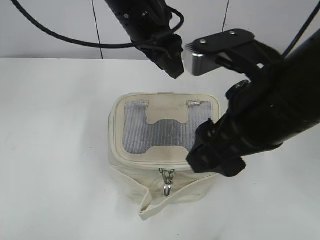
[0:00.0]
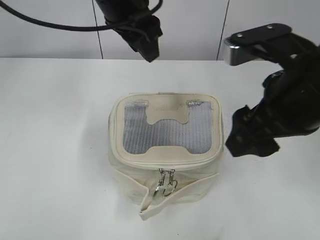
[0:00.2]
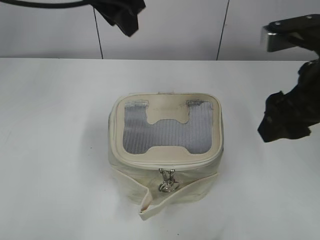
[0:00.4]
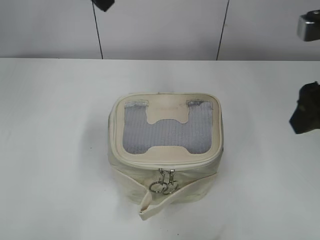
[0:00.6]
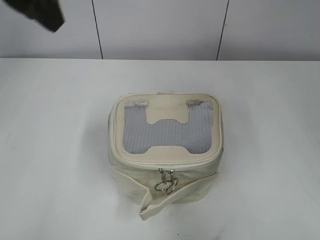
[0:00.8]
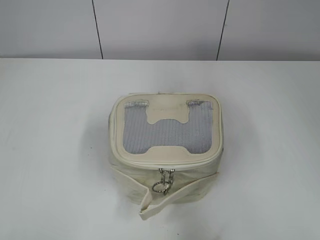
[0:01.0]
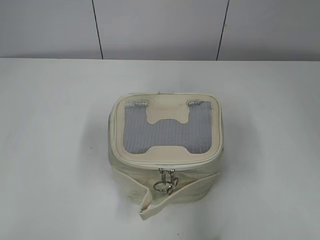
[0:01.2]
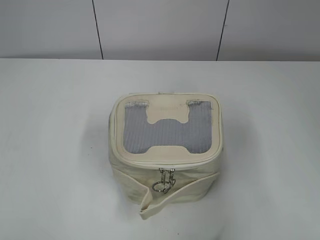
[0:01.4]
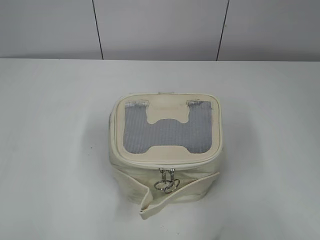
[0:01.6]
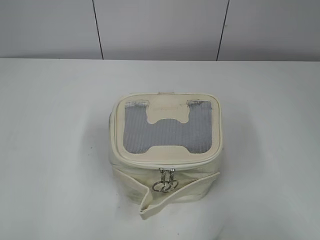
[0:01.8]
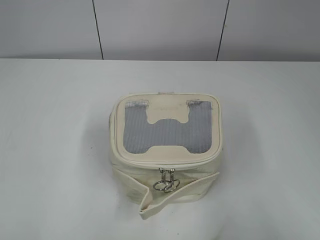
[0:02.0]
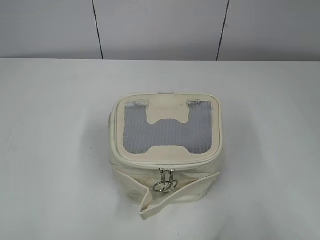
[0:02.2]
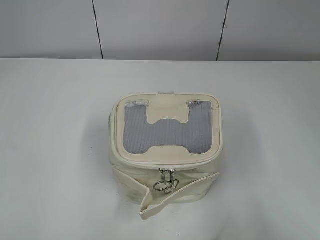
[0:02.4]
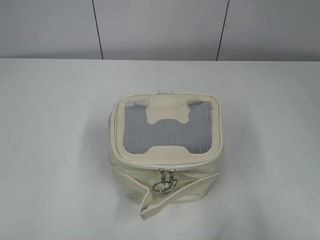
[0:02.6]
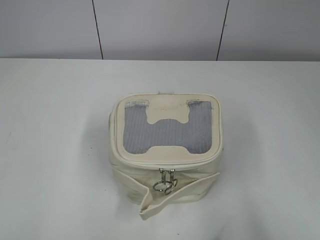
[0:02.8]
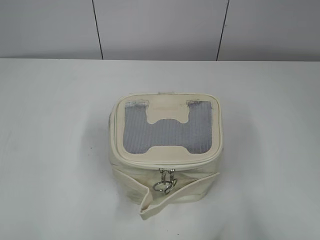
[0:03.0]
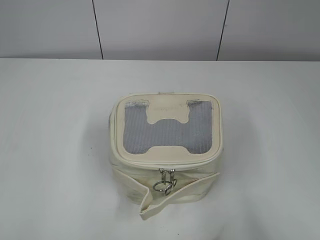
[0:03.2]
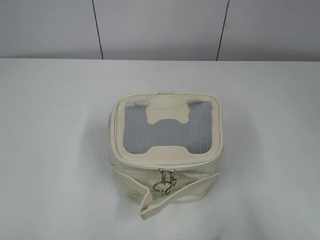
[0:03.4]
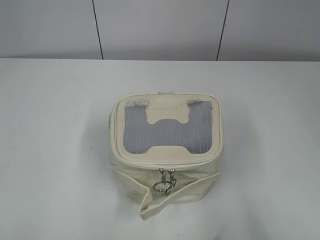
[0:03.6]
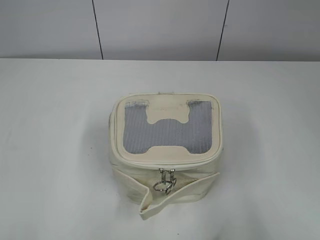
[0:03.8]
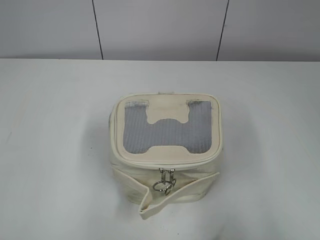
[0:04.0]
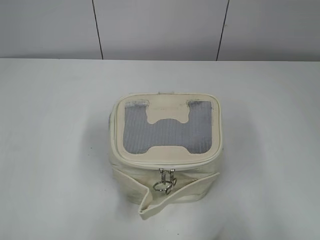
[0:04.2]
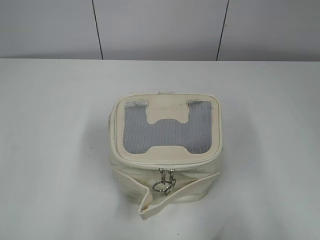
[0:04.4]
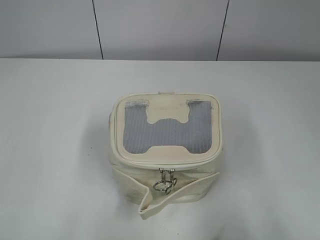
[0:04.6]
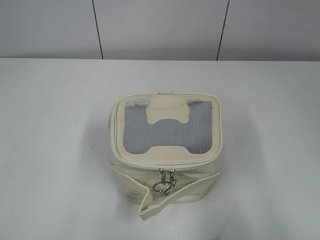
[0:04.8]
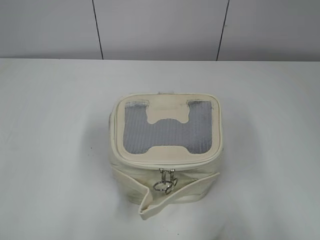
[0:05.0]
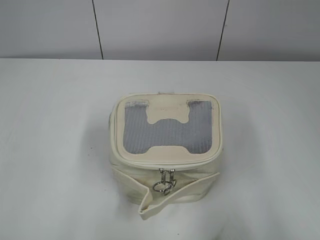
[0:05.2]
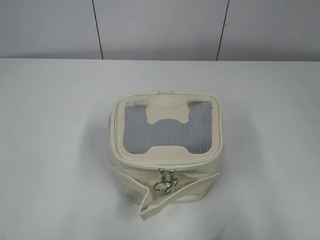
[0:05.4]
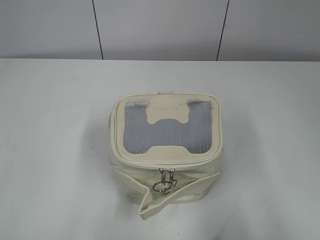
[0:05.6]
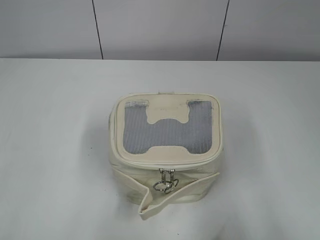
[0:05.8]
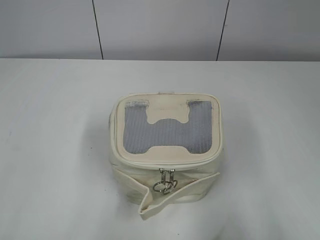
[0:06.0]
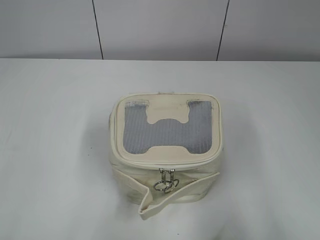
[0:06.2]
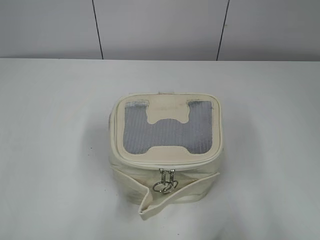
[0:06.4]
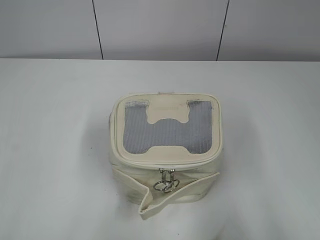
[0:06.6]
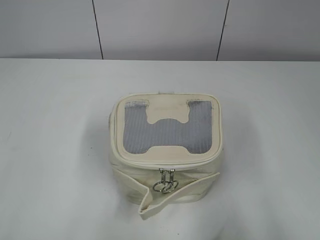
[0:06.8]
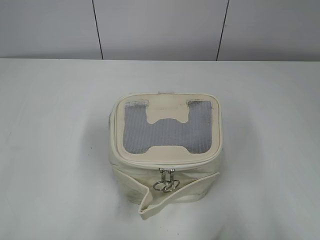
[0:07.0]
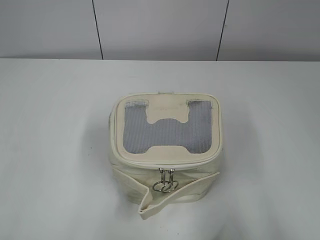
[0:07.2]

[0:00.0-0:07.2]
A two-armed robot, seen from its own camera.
0.0 to 1.4 s: The left gripper is displaced backward and to the left by approximately 40 cm; the right gripper shifts about 20 cm to the right and backward.
1.4 to 2.8 s: The left gripper moves downward and backward, some 10 cm, while the right gripper moves backward, some 10 cm.
5.8 to 7.2 s: The two grippers keep their place.

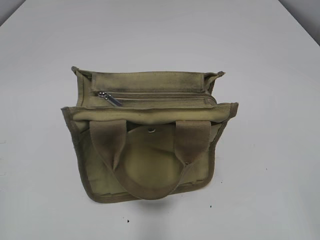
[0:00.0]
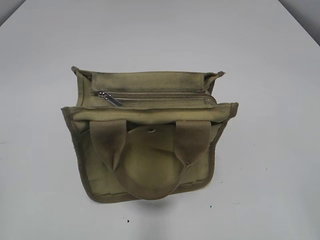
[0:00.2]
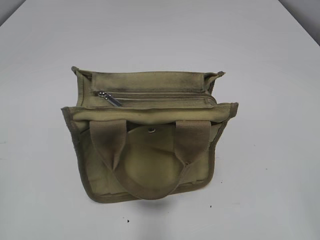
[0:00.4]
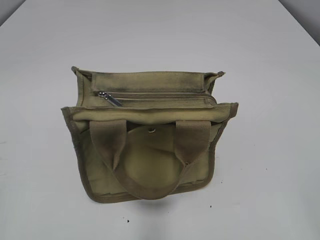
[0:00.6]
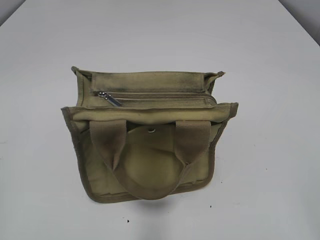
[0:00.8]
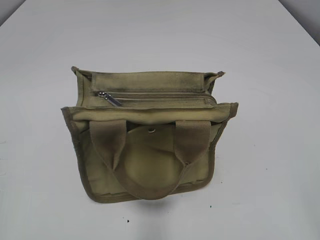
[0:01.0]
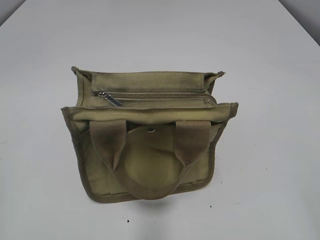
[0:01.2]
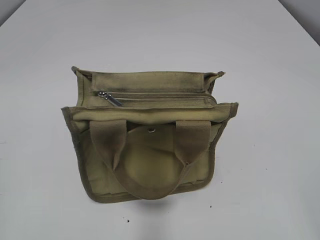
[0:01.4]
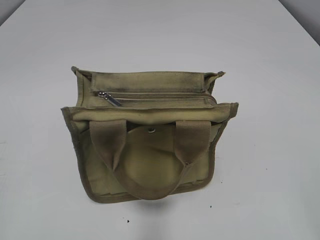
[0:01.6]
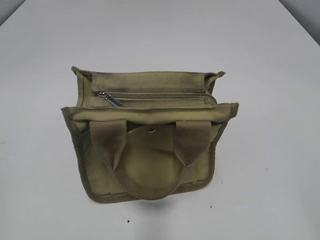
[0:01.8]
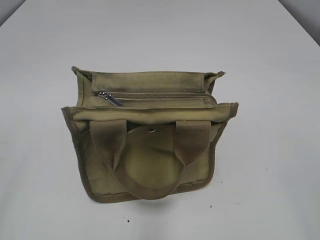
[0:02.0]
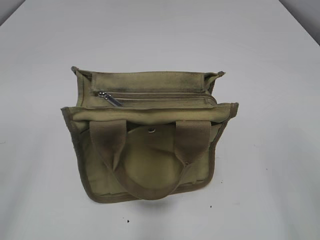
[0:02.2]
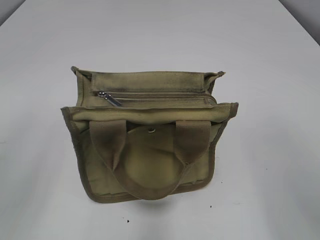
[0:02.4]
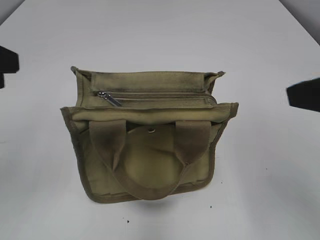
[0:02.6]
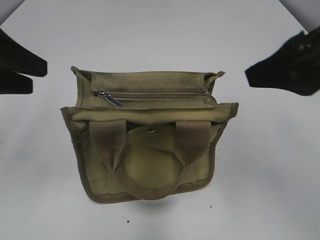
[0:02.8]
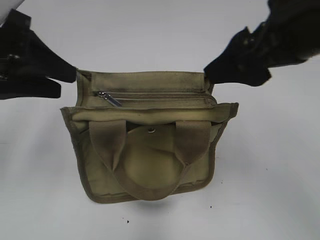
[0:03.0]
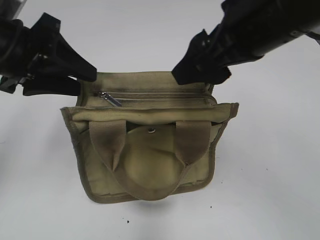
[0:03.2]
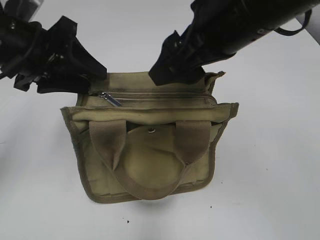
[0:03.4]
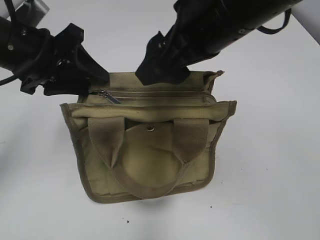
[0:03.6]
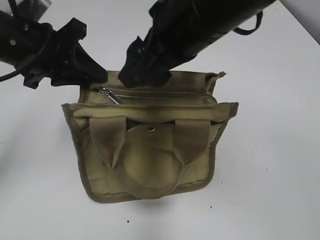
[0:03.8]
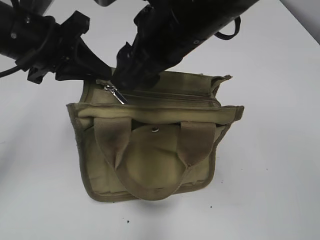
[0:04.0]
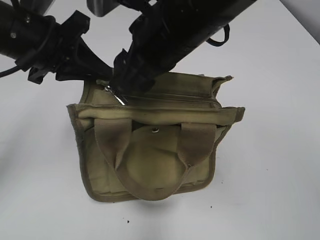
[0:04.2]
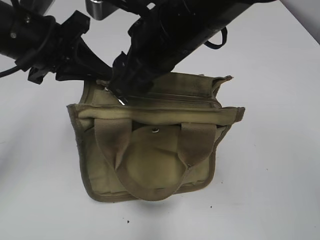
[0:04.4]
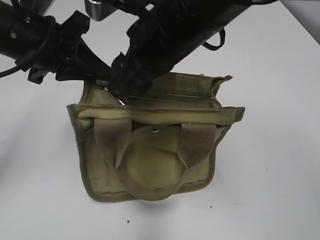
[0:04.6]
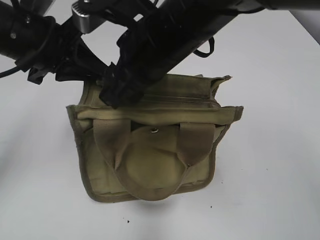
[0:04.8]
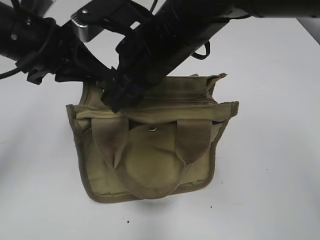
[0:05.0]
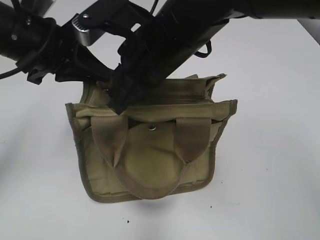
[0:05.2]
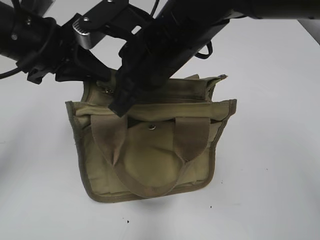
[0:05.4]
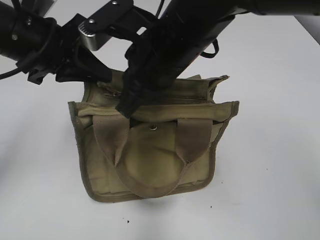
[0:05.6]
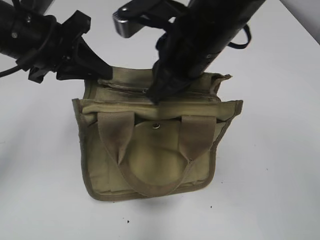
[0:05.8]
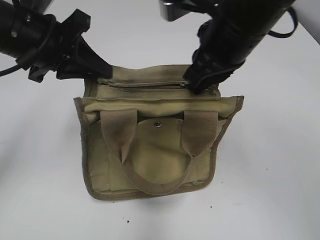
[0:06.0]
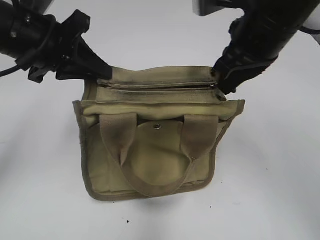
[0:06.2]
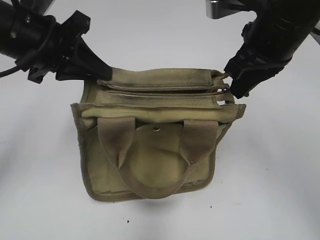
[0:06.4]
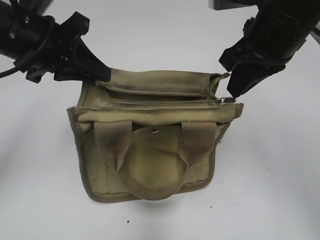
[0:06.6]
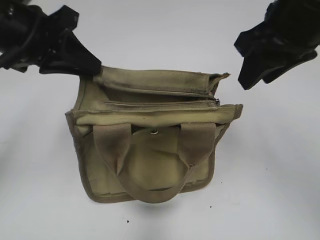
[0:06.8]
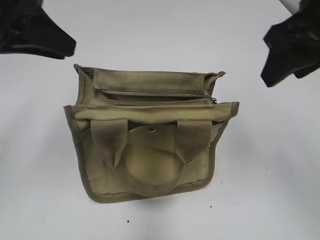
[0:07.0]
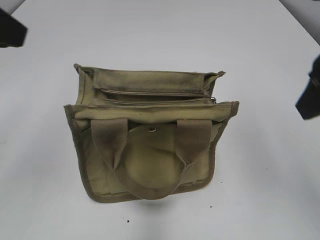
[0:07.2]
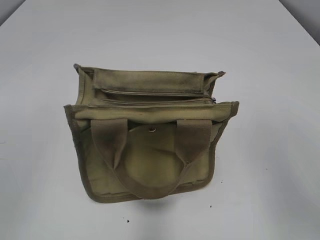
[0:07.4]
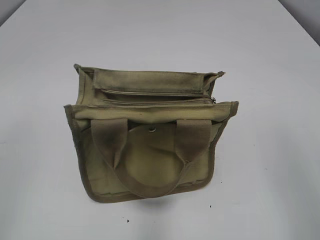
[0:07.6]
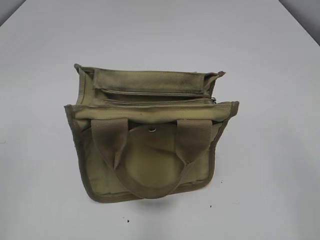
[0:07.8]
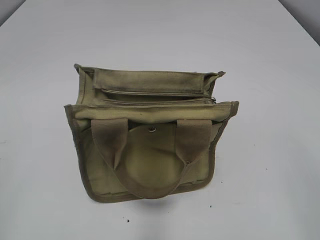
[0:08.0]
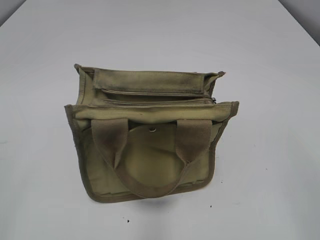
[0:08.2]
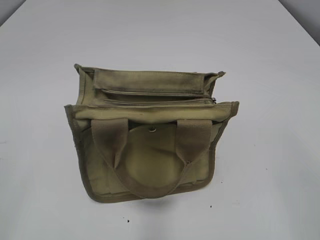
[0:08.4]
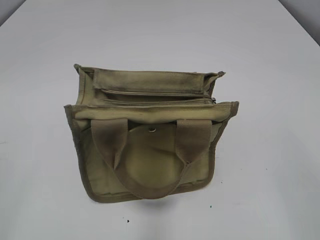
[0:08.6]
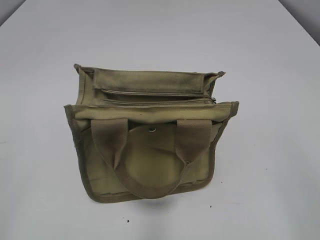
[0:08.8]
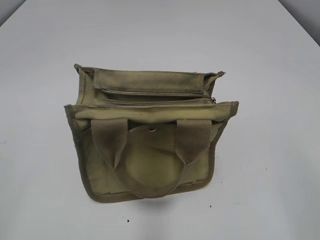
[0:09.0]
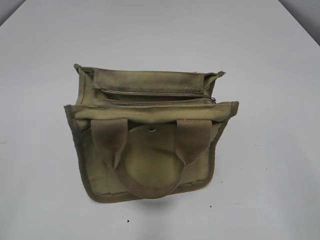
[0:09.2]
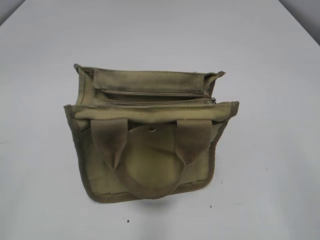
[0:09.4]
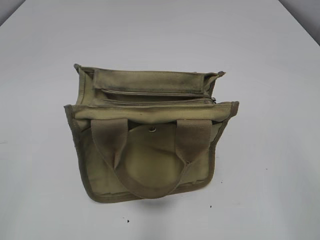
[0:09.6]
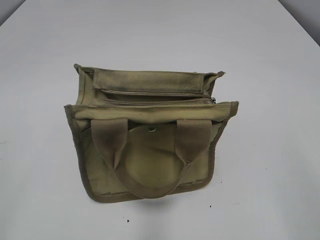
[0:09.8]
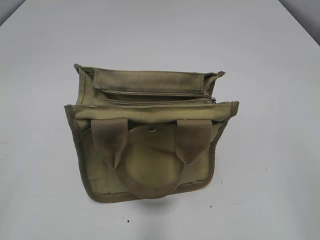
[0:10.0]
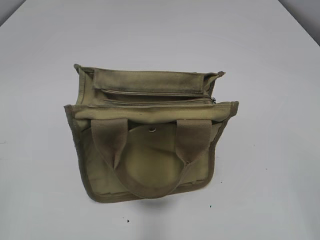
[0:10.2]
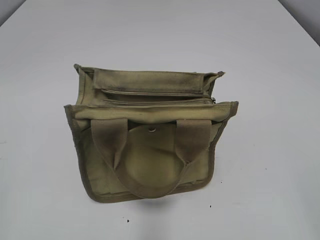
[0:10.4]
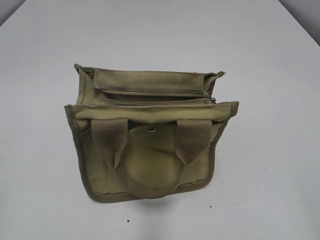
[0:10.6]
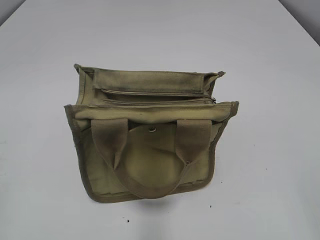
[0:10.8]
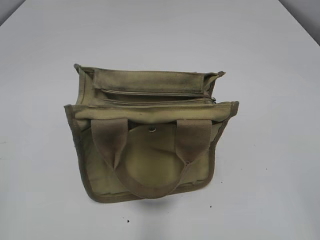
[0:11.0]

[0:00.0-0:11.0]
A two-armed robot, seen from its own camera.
Step, 0.0 to 6.6 s: Pull open the zipper with your right hand.
1.6 to 3.2 s: The right gripper travels forward and to the left by roughly 30 cm. The left gripper heads forward and to the right, covering about 30 cm.
3.2 to 4.8 s: The right gripper heads to the left and downward, covering roughly 10 cm. The left gripper closes its fingers.
4.8 to 6.2 s: The right gripper heads to the right, covering approximately 10 cm, and closes up.
6.2 to 7.8 s: The right gripper goes approximately 30 cm backward and to the right, and opens up. The left gripper is displaced backward and to the left by some 25 cm, and opens its fingers.

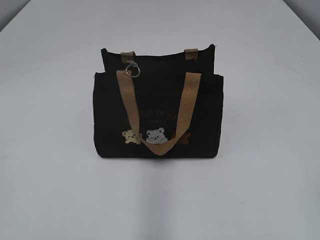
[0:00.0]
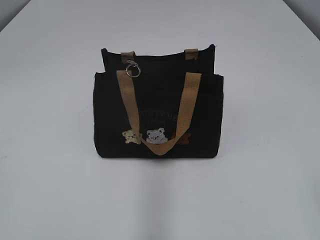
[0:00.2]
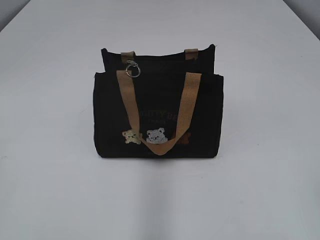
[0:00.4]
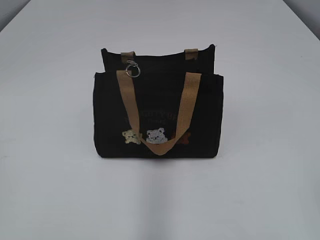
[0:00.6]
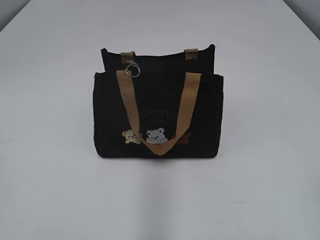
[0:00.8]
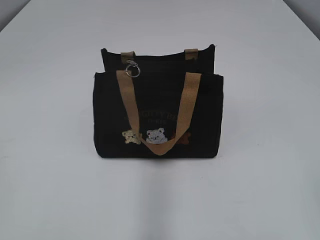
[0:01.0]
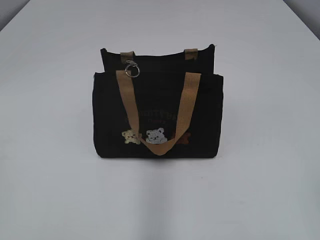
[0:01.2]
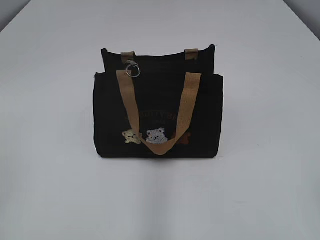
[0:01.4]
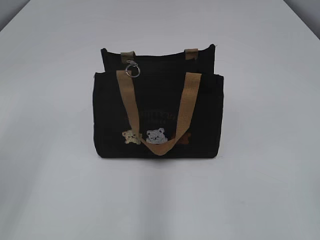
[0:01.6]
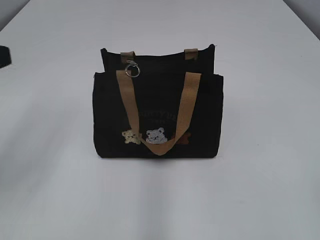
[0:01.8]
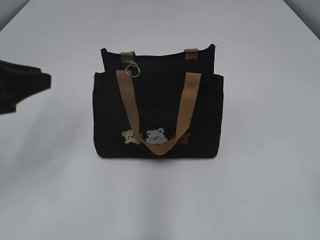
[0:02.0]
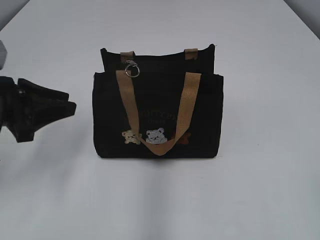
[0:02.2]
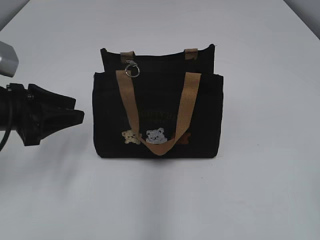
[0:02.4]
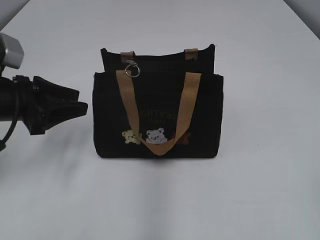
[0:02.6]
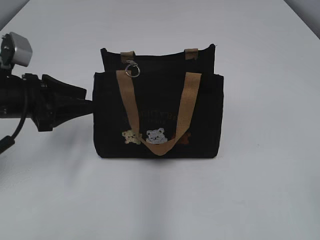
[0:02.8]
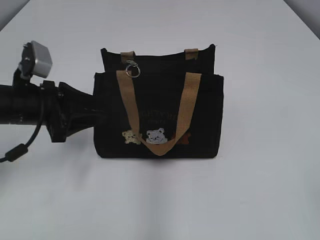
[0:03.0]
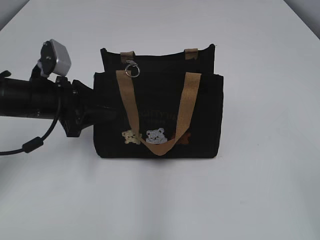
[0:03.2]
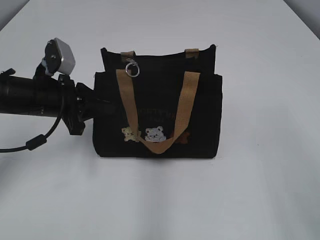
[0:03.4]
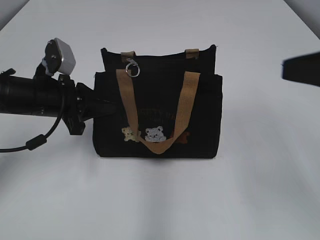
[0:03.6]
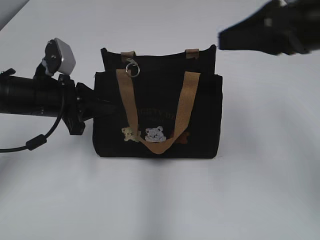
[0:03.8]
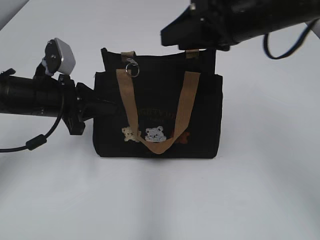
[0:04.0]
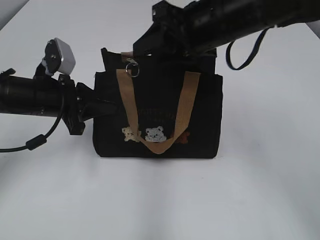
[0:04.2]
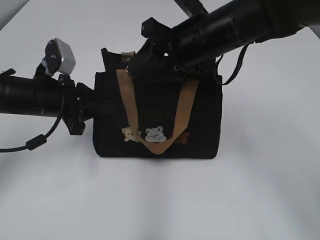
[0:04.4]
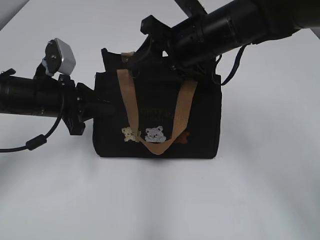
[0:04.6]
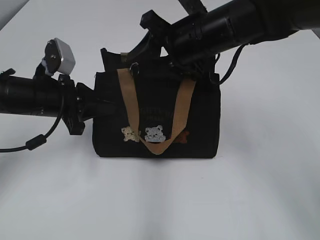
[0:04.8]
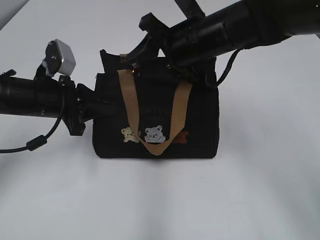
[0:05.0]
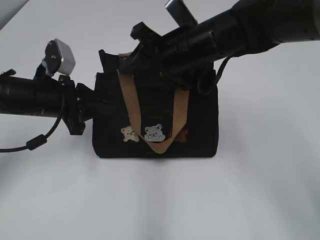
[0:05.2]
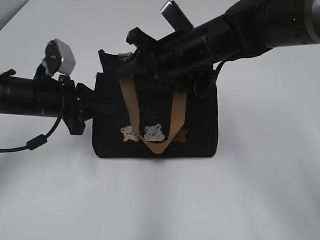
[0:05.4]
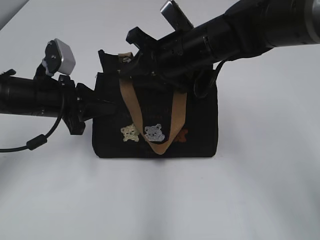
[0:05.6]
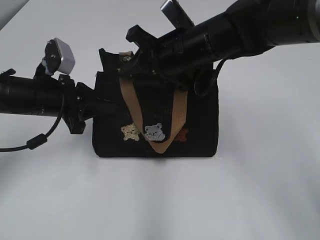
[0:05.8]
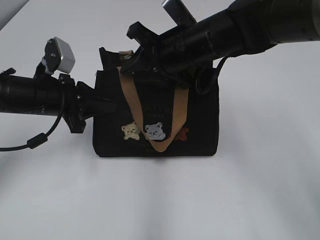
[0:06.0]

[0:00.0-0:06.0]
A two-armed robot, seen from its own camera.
1.6 to 3.0 s: The left gripper shifts some 25 cm forward and downward, and opens.
3.0 to 4.4 s: The right gripper heads forward and to the left, covering some 40 cm, while the left gripper closes.
4.4 to 6.0 s: The grippers make only small movements.
